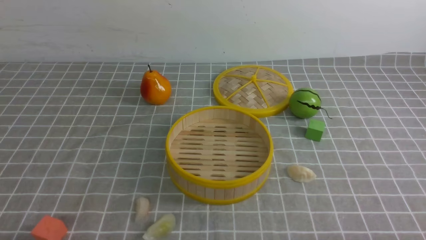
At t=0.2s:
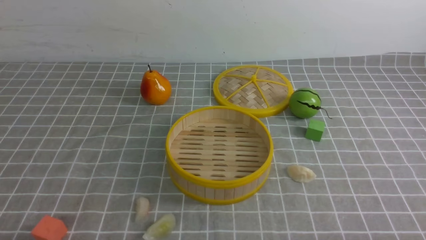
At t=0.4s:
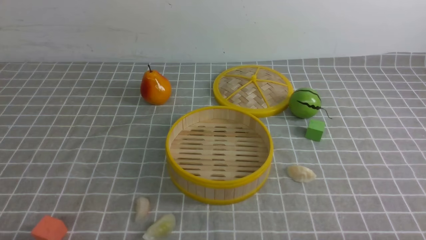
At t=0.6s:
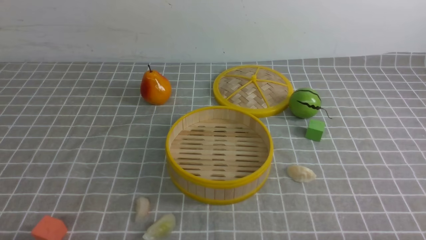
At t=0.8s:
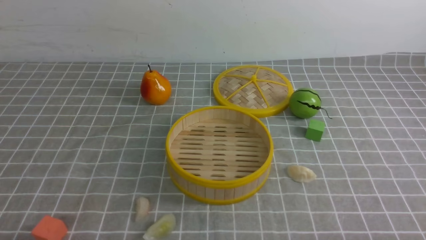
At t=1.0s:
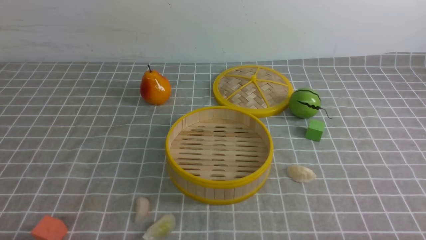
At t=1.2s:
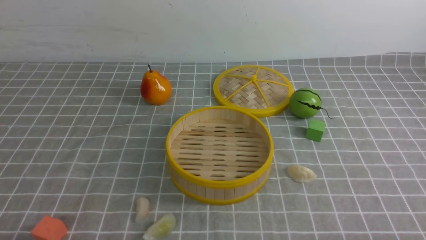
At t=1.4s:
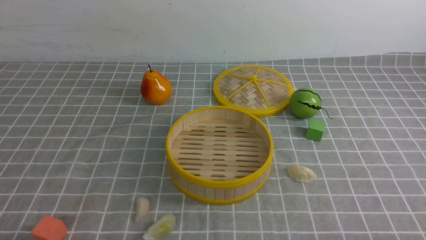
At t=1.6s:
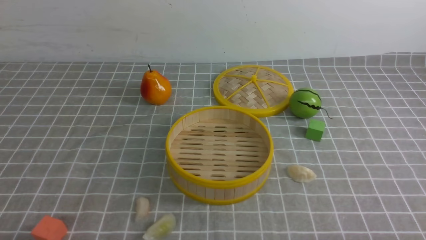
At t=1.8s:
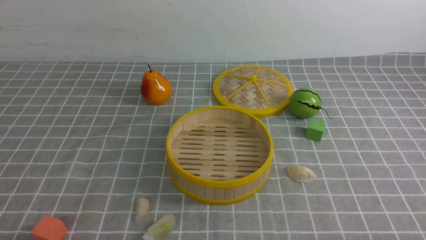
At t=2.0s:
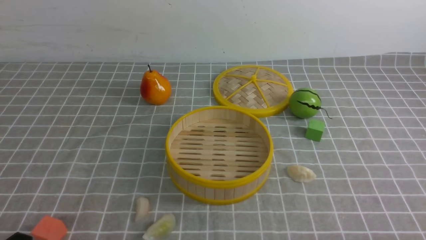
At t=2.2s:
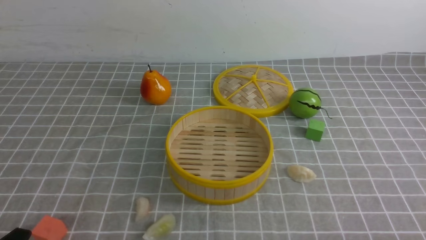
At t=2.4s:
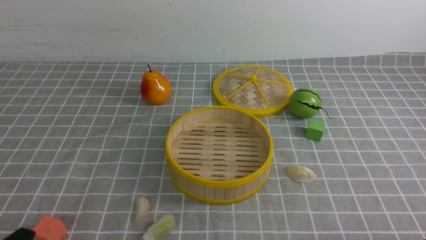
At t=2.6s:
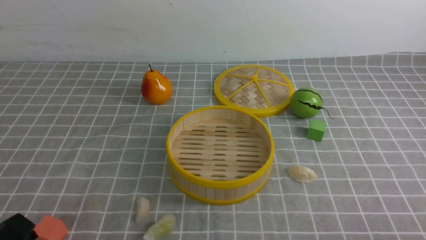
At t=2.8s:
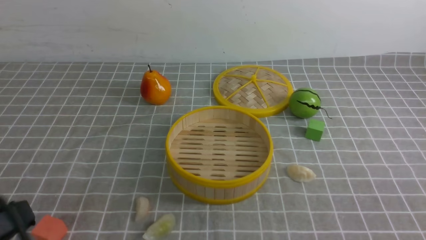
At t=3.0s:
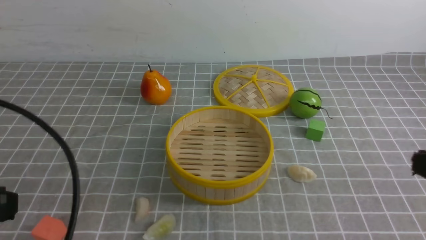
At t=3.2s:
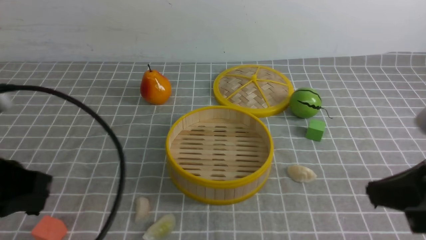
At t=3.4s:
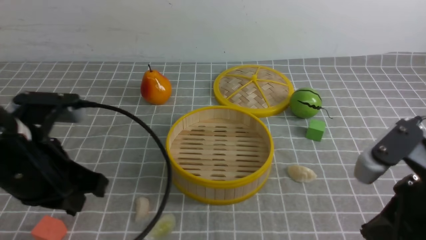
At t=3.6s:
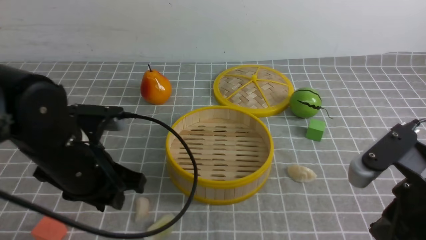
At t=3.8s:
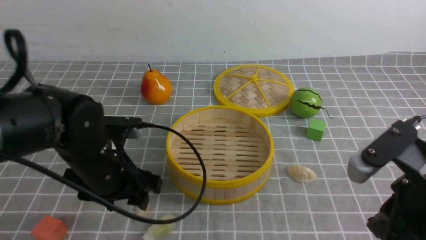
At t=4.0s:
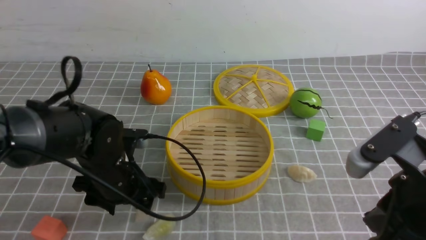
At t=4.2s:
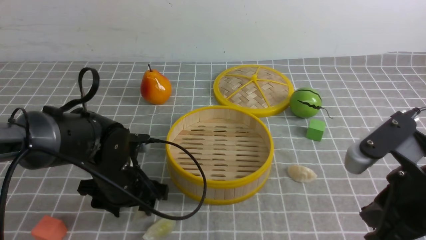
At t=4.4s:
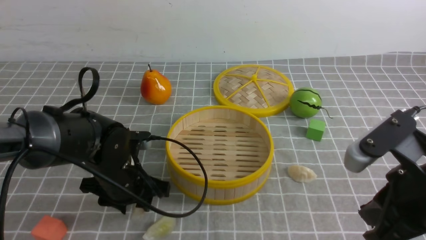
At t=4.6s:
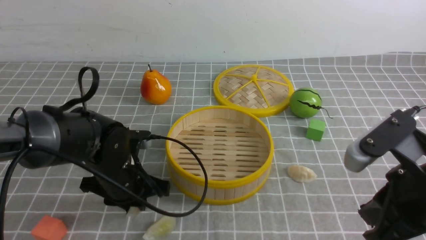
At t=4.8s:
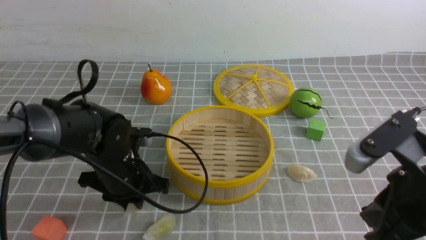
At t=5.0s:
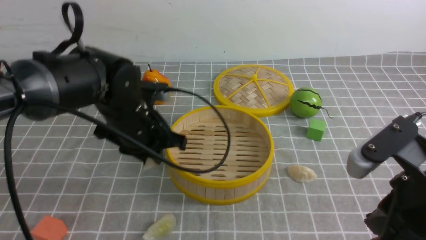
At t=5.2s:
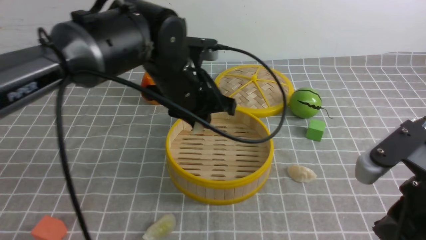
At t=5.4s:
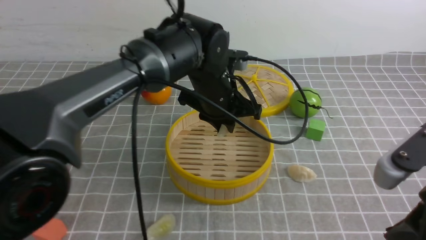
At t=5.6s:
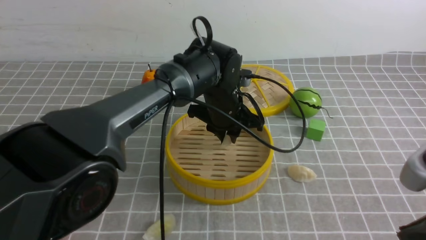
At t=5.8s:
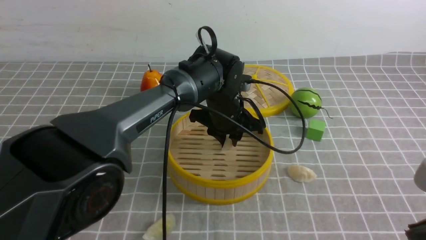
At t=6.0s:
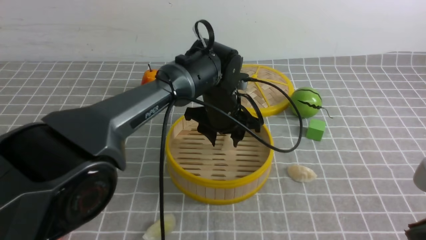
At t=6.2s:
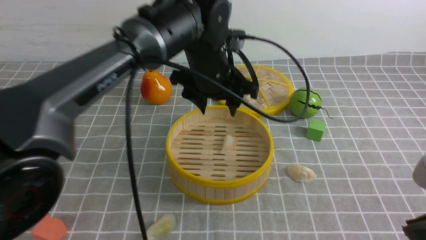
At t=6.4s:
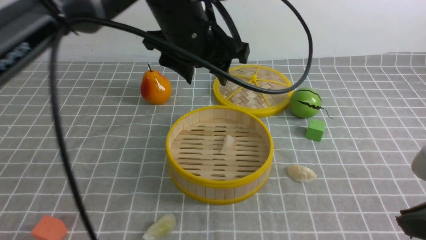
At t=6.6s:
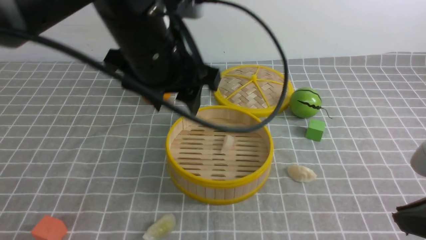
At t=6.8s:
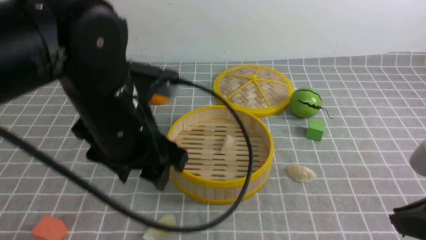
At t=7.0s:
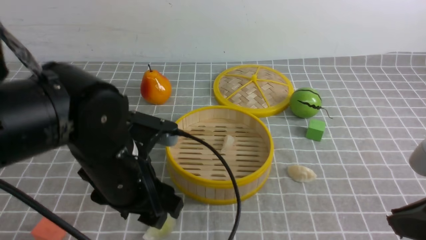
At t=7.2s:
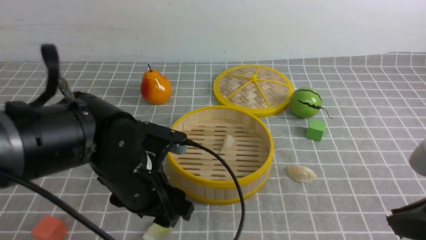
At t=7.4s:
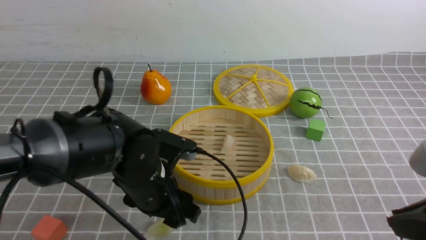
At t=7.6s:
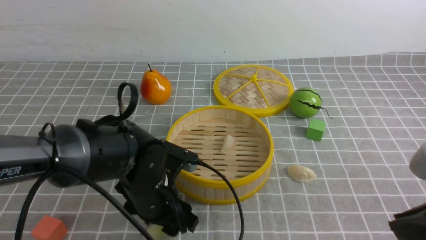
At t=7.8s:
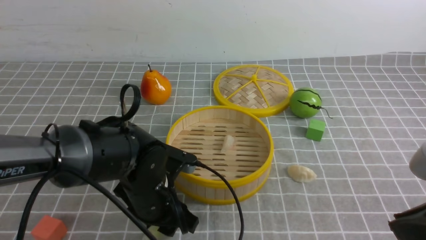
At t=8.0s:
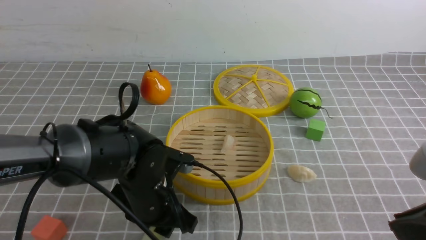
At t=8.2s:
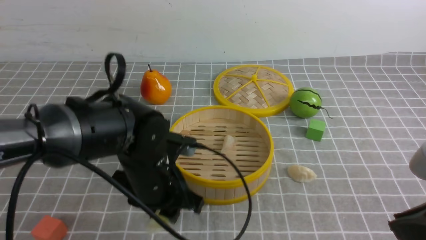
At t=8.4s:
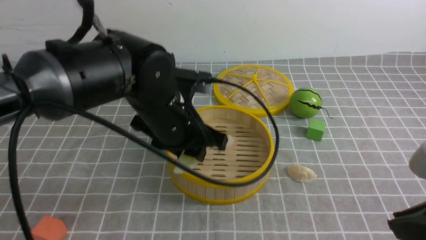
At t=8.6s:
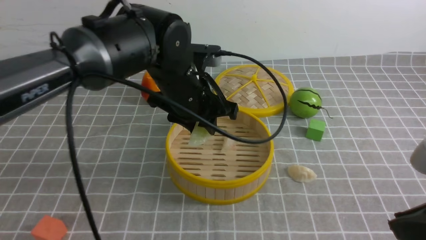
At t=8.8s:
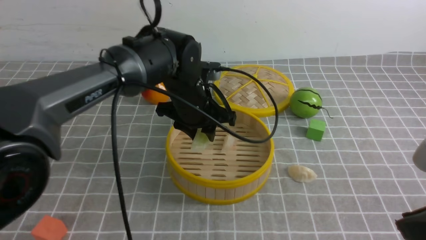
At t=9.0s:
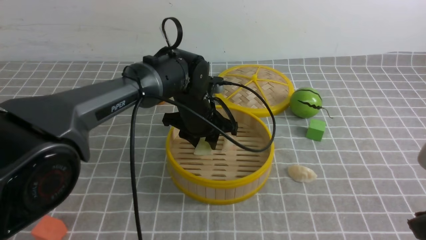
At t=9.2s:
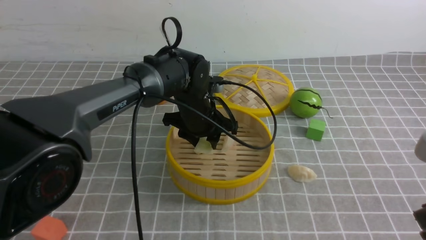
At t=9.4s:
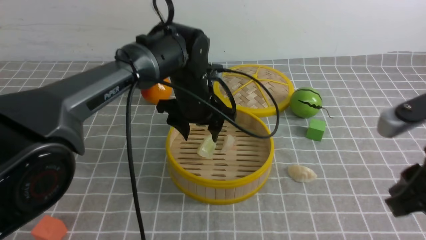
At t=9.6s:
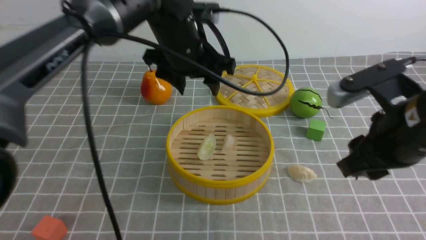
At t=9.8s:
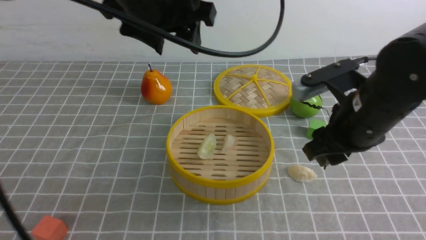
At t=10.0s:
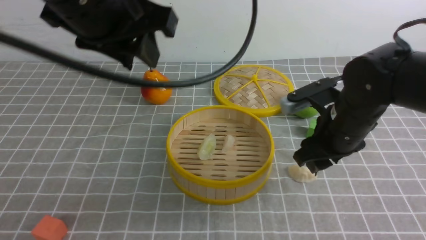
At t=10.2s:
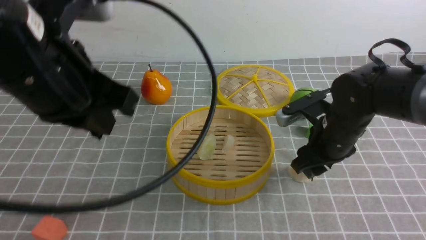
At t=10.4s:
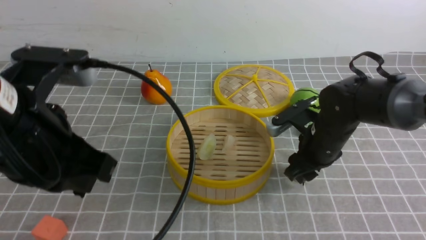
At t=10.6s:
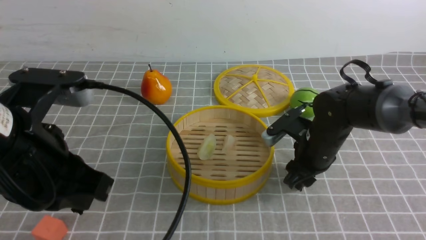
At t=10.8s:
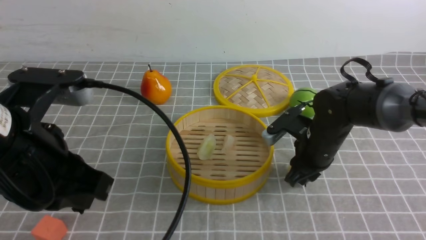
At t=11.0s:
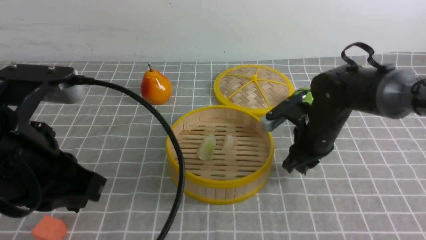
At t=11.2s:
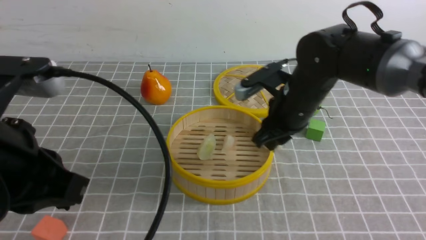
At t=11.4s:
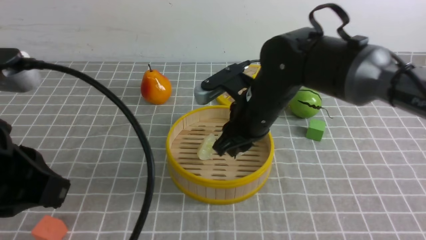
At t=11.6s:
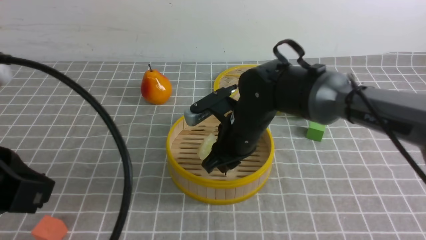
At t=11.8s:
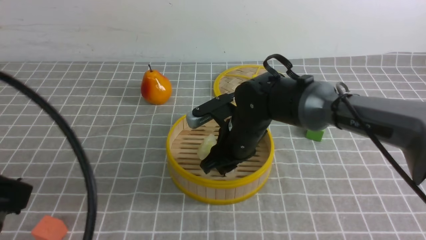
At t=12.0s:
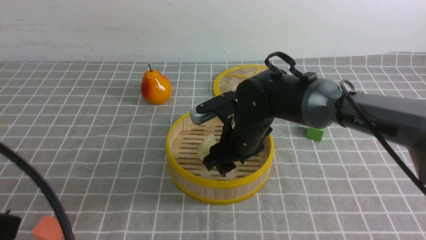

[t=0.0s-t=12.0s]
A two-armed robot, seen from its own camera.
Task of the whole recording: put the dumplings into the steamer on the table with the grey tablecloth.
Step, t=0.0s to t=4.8s: use the left arm to grab a dumpling.
Step, t=5.0s to t=6.0s: use the left arm to put the dumpling into the steamer.
Step, t=6.2s to t=8.2s: use the left arm to grab a dumpling.
Step, t=8.4s to t=9.4s: use the left arm to put the dumpling into the steamer.
Step, t=9.6s to t=11.0s: use the right arm to grab a dumpling.
t=1.6s to t=3.0s: The left gripper goes about 15 cm upward, and closes its fingers.
t=3.0s to t=4.4s: The right gripper heads forward and to the left, covering approximately 10 cm. Meanwhile the left gripper heads forward, downward and to the right, covering some 30 cm, and opens up.
t=4.4s to t=6.0s: The right gripper is displaced backward by approximately 5 cm. Meanwhile the left gripper is displaced to the right, forward and upward by some 20 cm.
t=6.0s to t=7.6s: The left gripper heads backward and to the left, covering roughly 20 cm, and goes upward and returns, some 15 cm each way.
t=7.6s to t=9.0s: The left gripper shifts some 15 cm forward, and closes.
t=9.0s to t=10.4s: The left gripper heads backward, upward and to the left, covering some 30 cm, and closes up; the right gripper shifts roughly 25 cm forward and downward, and opens up.
t=10.4s to t=12.0s: The left gripper moves backward and to the left, about 10 cm. The right gripper goes some 15 cm to the left, and closes, then opens again.

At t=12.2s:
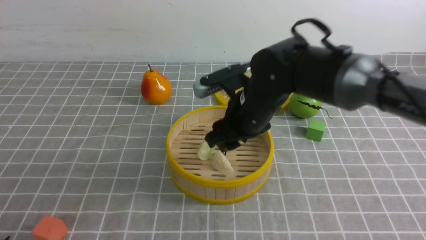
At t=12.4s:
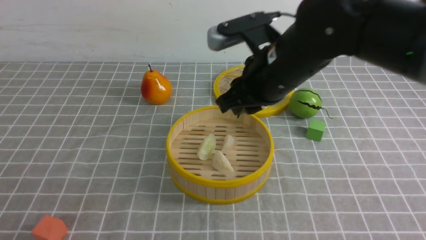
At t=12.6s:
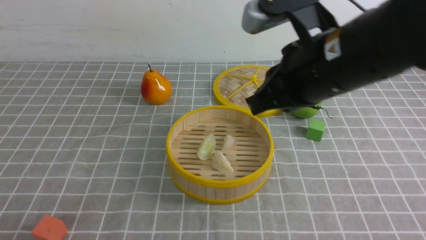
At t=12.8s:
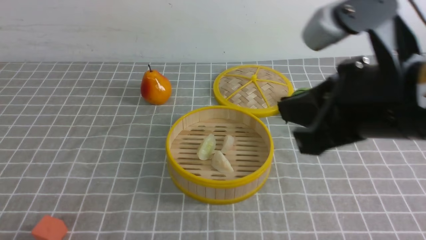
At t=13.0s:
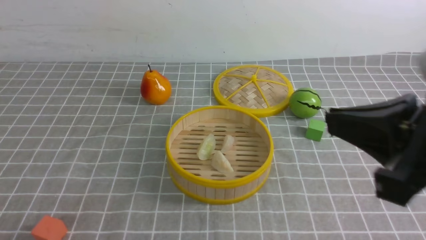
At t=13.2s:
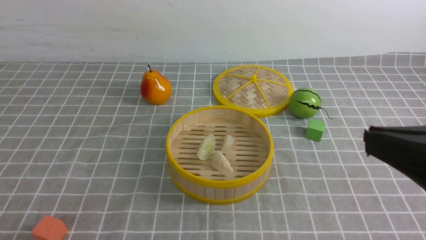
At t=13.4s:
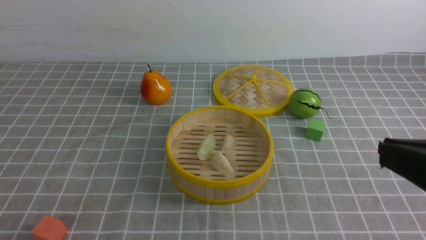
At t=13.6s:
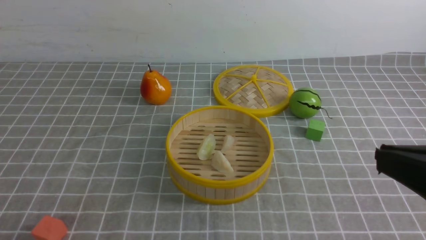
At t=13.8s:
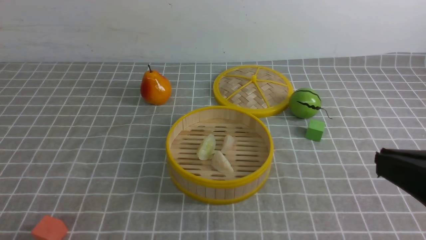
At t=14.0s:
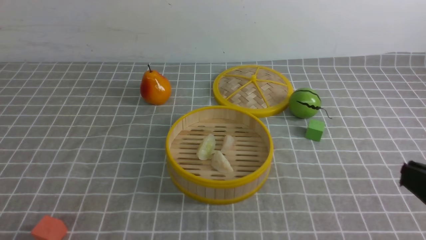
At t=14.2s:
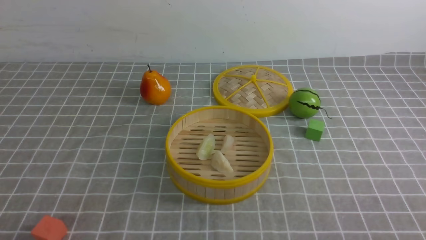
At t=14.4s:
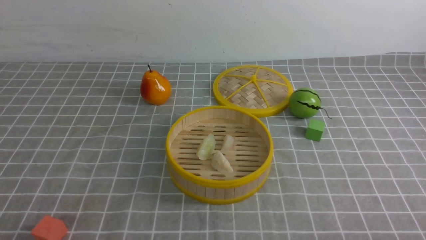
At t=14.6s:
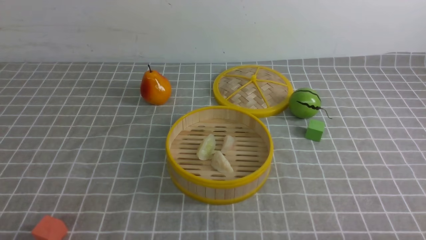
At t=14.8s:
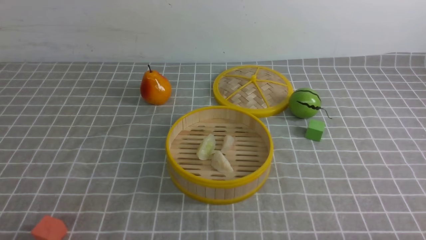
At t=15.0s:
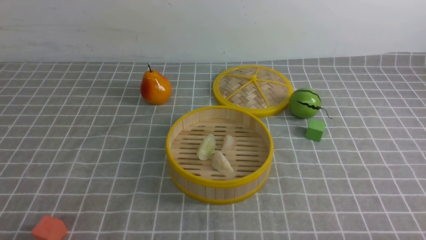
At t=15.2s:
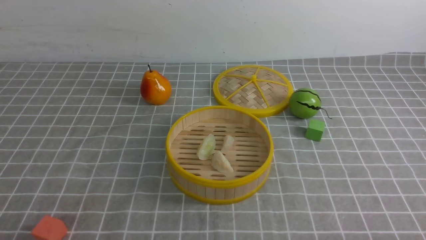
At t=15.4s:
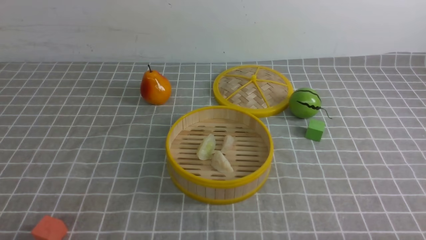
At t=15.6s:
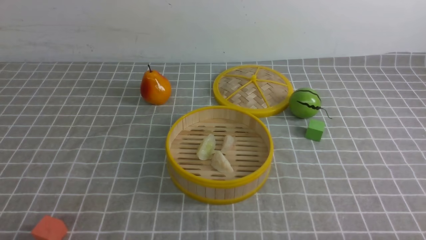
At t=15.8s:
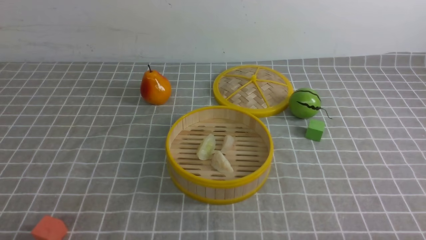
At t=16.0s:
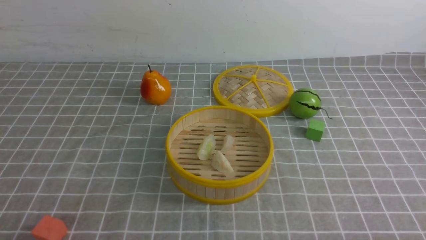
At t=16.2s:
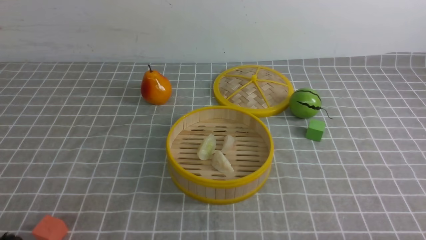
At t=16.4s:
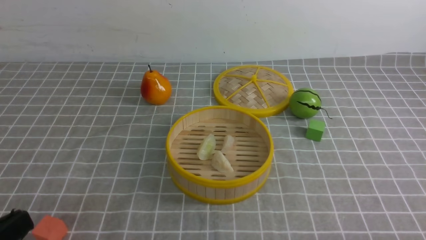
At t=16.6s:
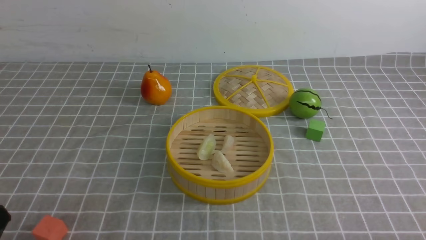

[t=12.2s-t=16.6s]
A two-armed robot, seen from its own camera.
Task of the whole recording: put the dumplings into the steamer on the table with the grey tablecloth.
t=12.2s to t=13.6s: The left gripper moves downward, about 5 cm; the right gripper moves backward, to the right and upward, approximately 35 cm, and closes.
t=13.6s to t=15.2s: The right gripper travels downward and to the right by roughly 20 cm.
